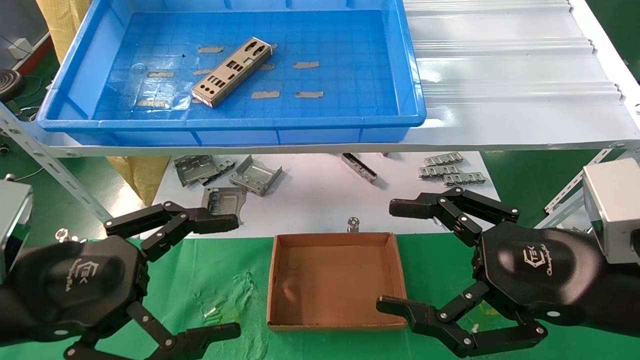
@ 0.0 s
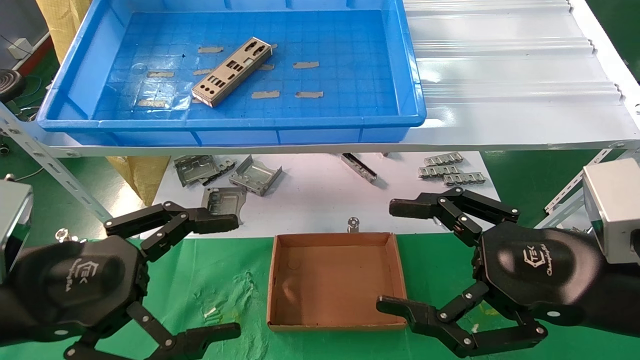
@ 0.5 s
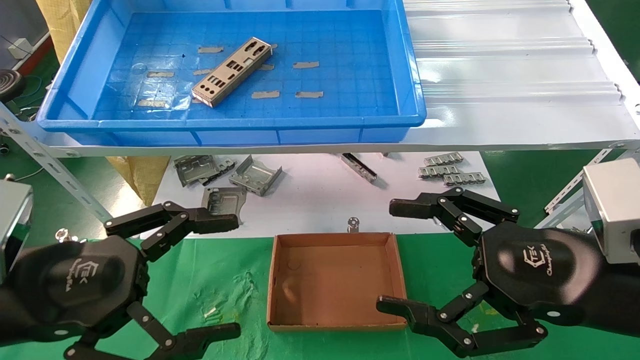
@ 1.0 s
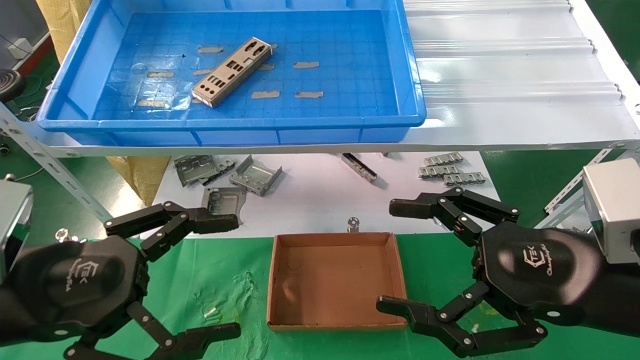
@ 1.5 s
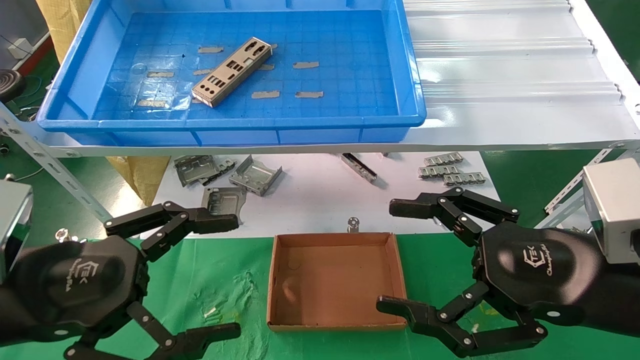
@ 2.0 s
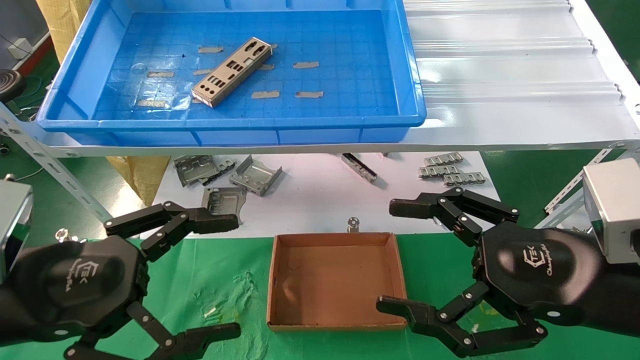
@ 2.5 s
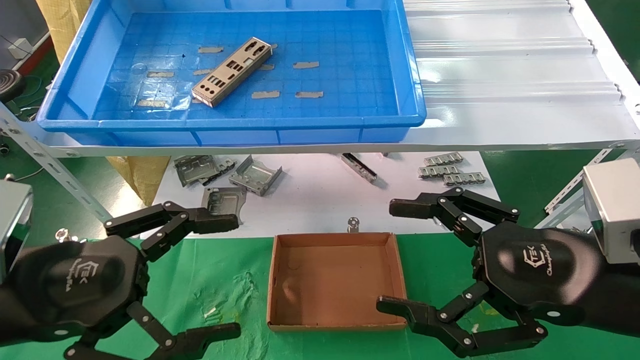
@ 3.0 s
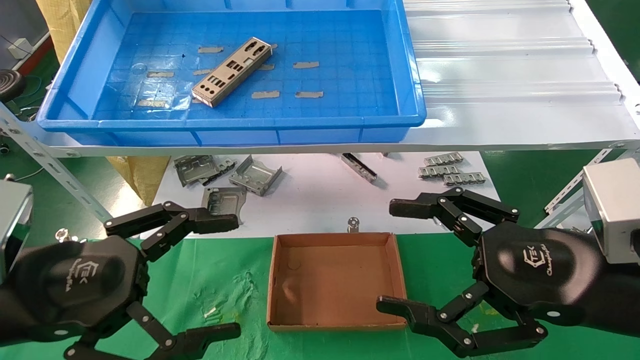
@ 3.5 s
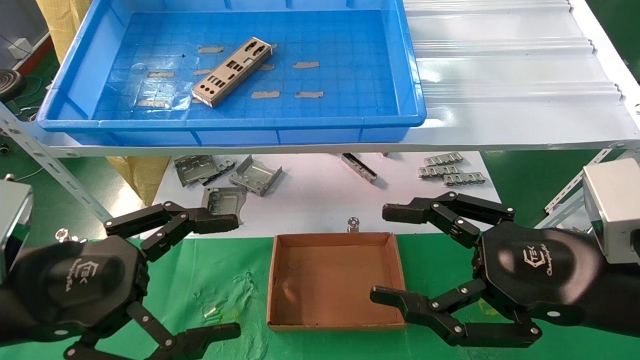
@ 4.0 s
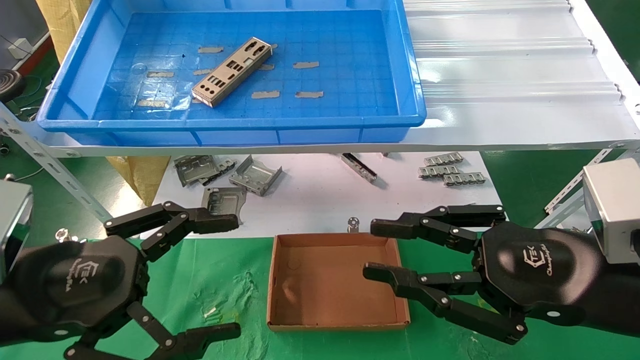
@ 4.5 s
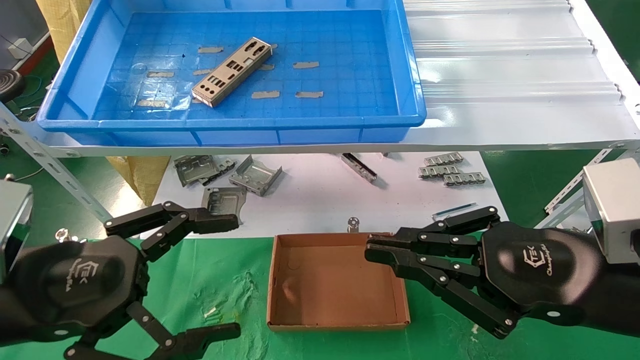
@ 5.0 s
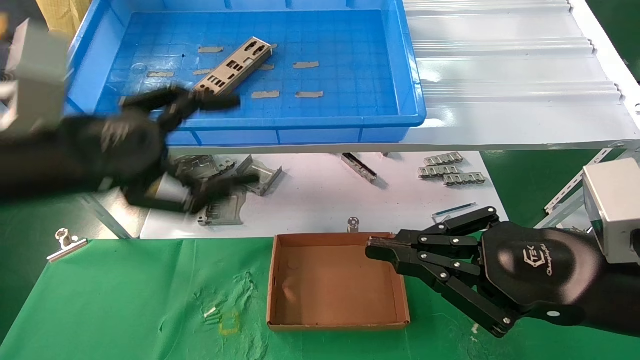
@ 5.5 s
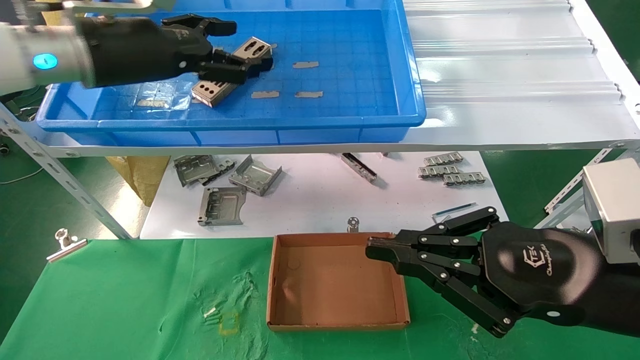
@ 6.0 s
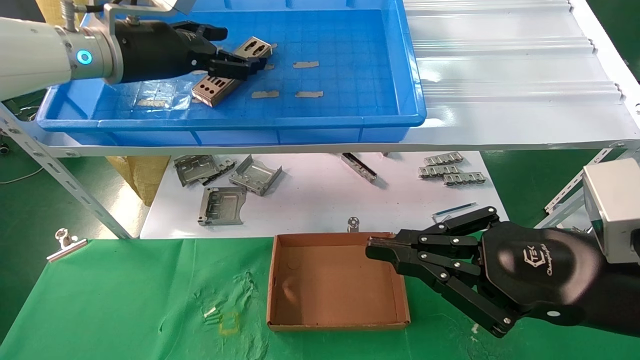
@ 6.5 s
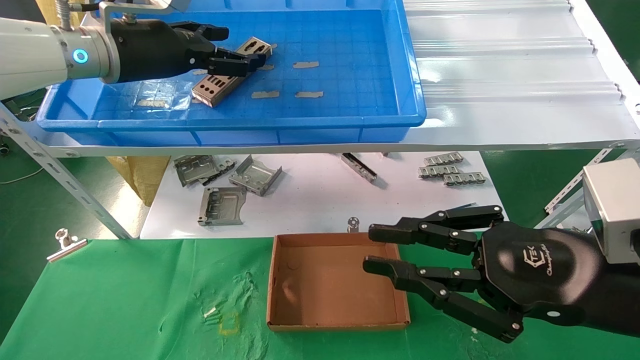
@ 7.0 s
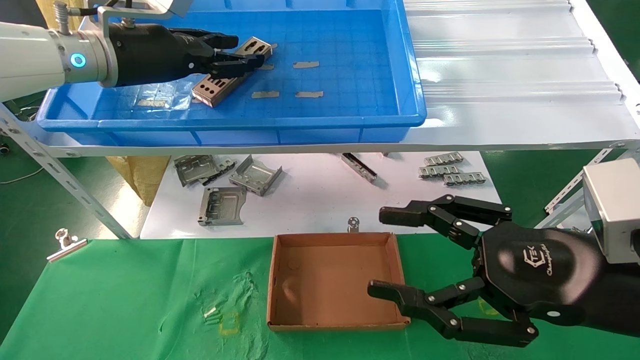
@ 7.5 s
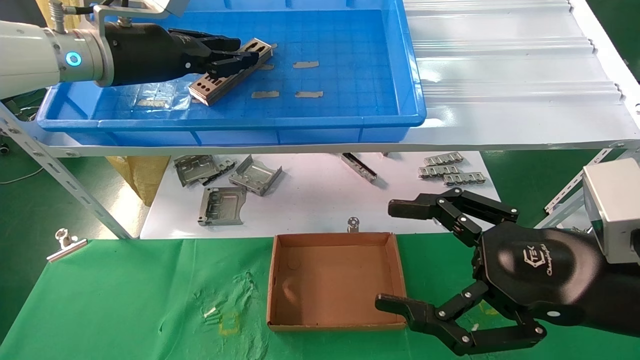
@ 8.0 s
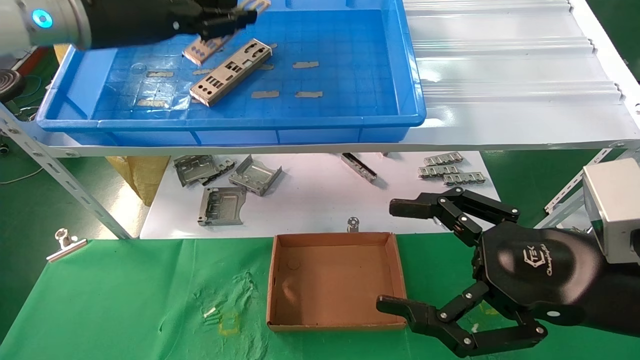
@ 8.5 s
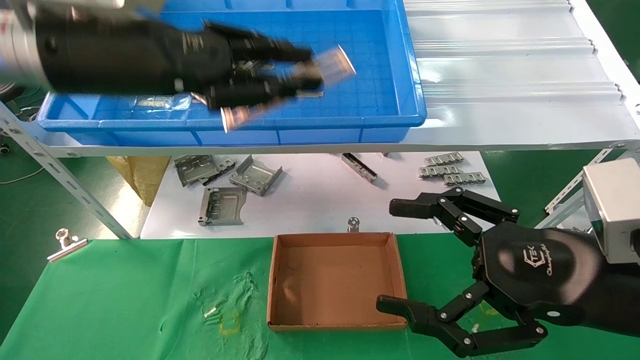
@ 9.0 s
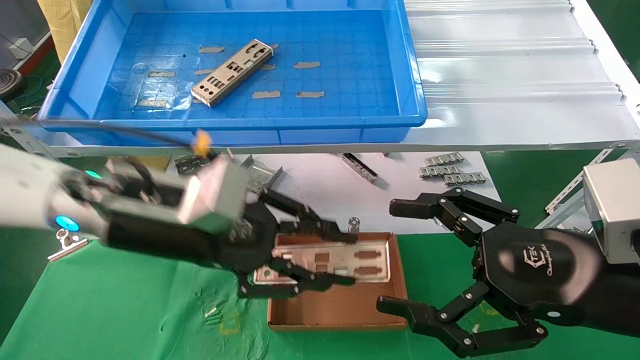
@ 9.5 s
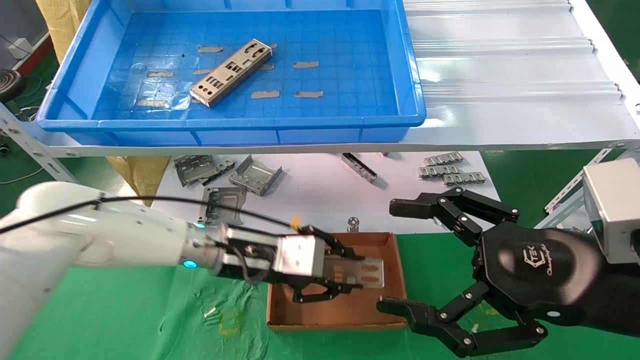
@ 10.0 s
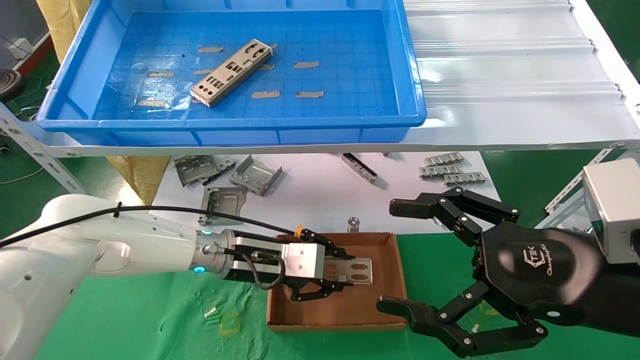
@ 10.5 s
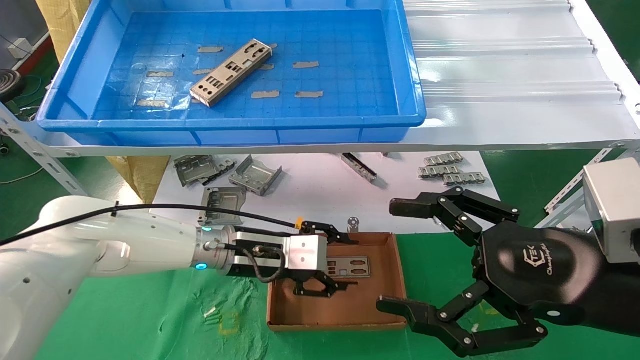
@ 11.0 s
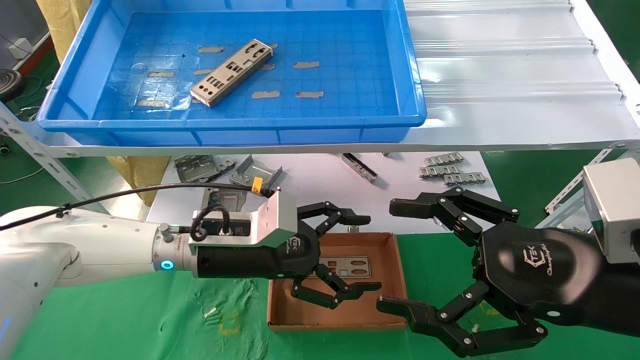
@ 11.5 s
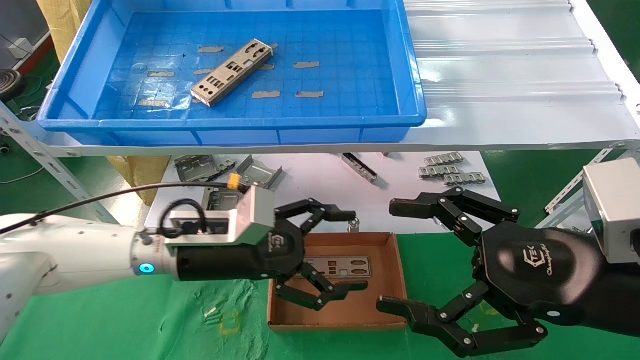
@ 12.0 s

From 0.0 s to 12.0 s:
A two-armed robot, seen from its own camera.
Task of the whole recording: pick up the parts on the tray and put them in the cardboard box.
Step, from 6.0 s to 7.5 s: Pick up the IO bracket from the container box.
Step, from 8.0 s to 10.5 s: Place the IO bracket into the ingredient slot.
From 0.0 s to 4.0 s: The two grippers keep their place.
From 4.0 s to 6.0 s: The right gripper closes. Meanwhile the left gripper is displaced forward and upward by about 25 cm.
From 6.0 s to 8.0 s: The left gripper closes. The right gripper opens.
From 8.0 s to 10.0 s: The left gripper goes about 30 cm downward and to the right.
From 10.0 s to 12.0 s: The left gripper opens up.

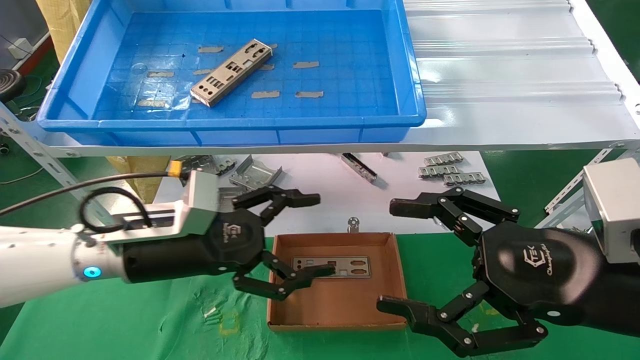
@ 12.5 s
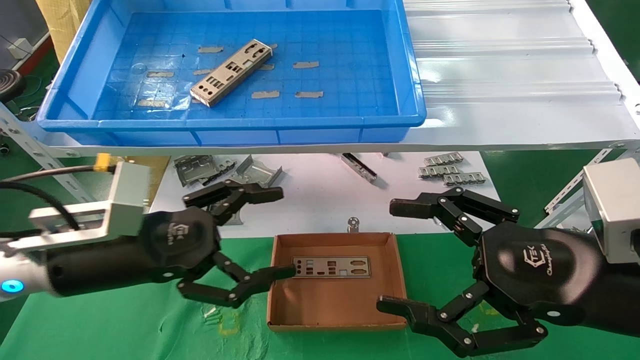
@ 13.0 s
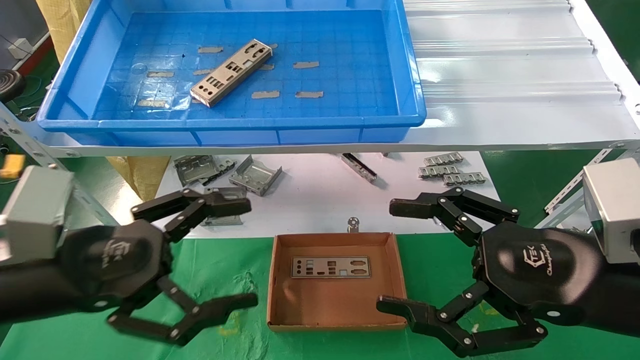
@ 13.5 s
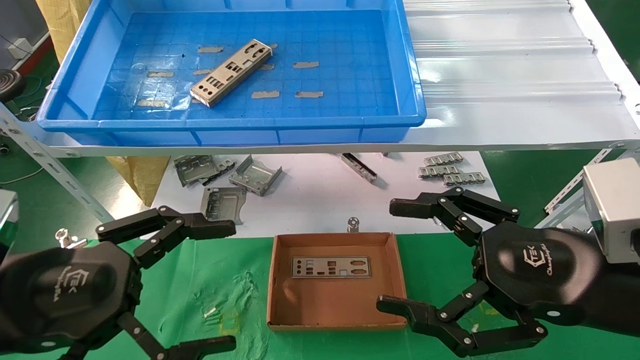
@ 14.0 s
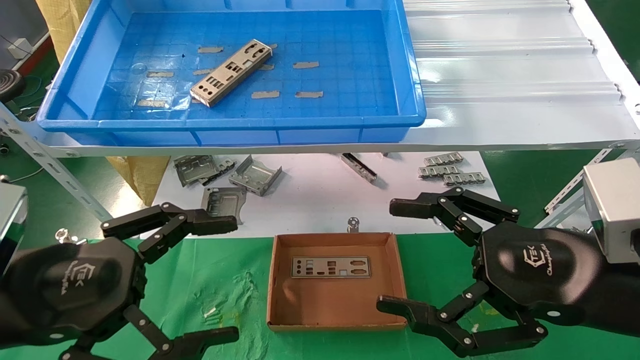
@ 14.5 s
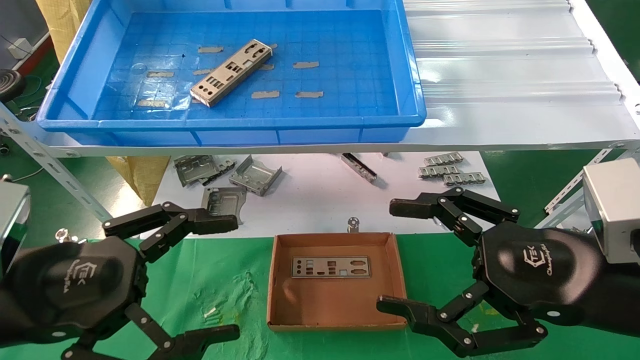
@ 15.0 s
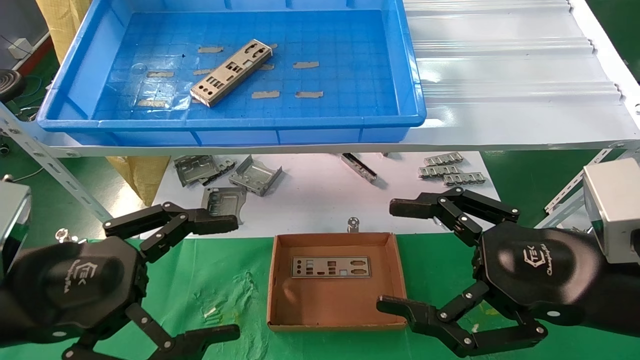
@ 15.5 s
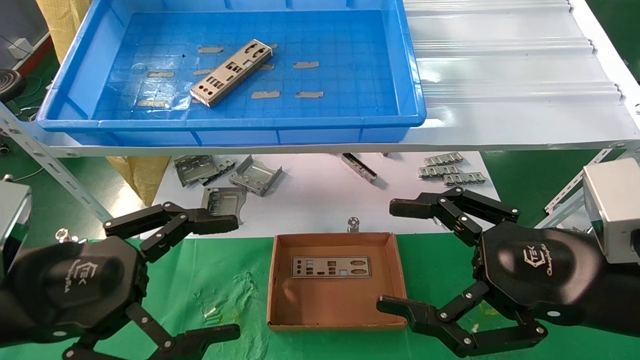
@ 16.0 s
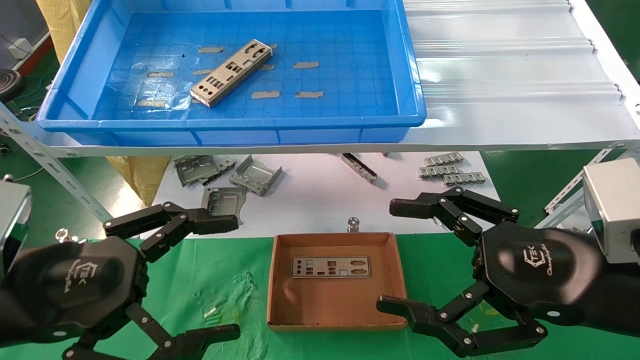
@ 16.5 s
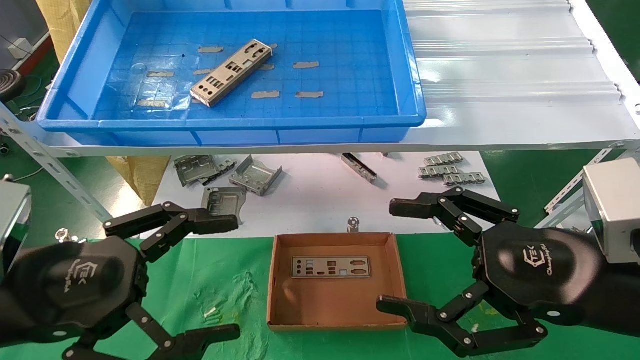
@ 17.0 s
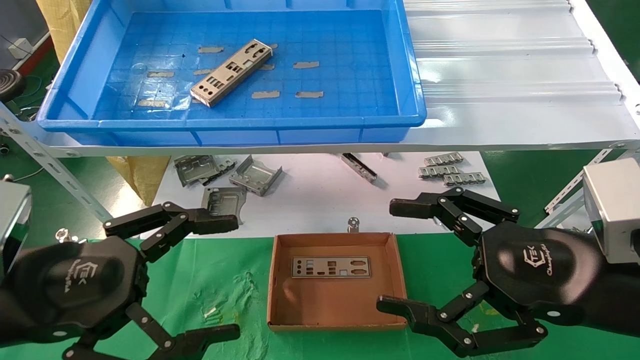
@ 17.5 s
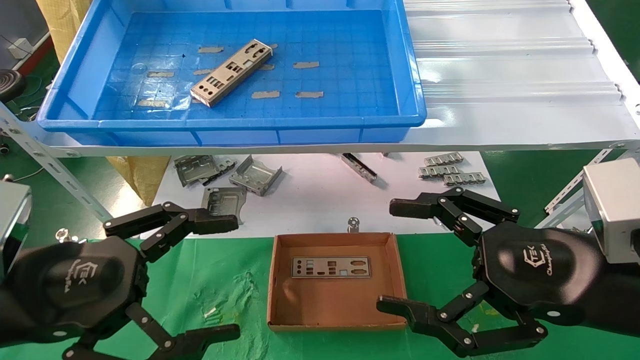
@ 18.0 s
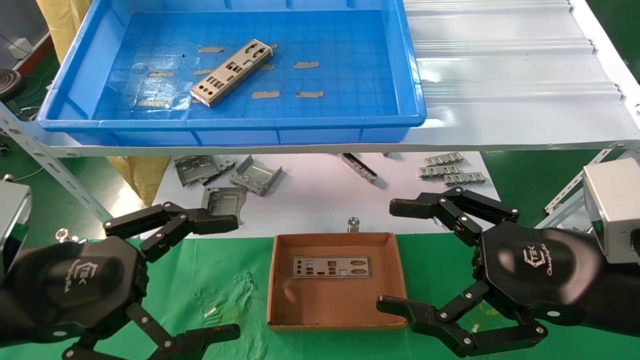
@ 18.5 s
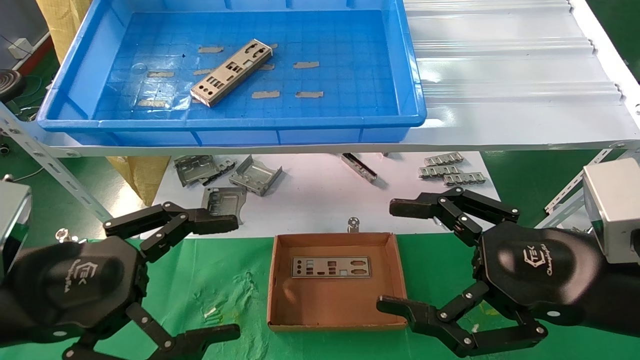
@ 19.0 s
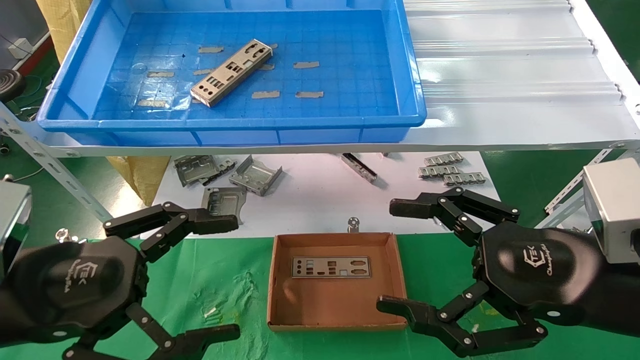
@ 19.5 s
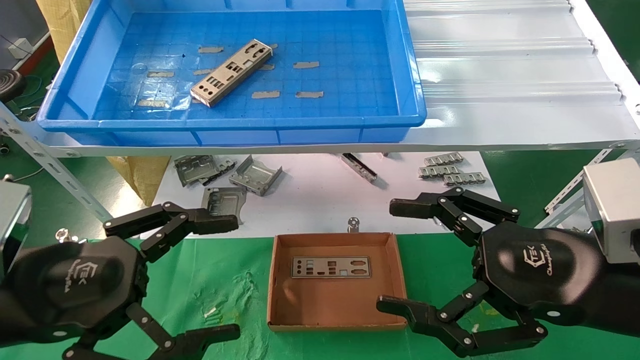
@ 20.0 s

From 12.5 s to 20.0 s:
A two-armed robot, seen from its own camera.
Task of the whole recording: pick up the parts on the tray and put them in the cardboard box.
From 12.5 s to 14.5 s: The left gripper moves backward and to the left, approximately 15 cm.
From 14.5 s to 20.0 s: Both grippers stay about where they are.
